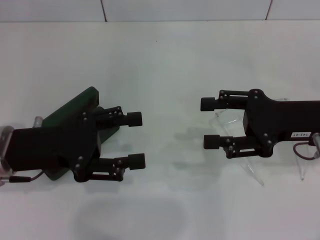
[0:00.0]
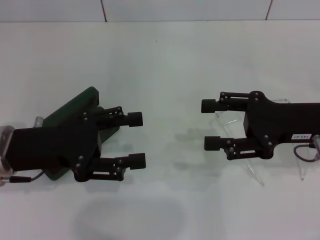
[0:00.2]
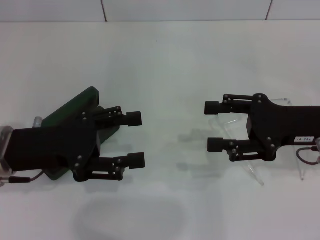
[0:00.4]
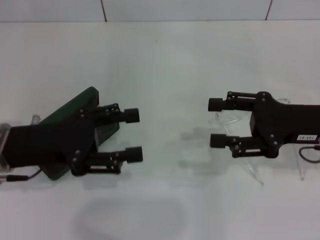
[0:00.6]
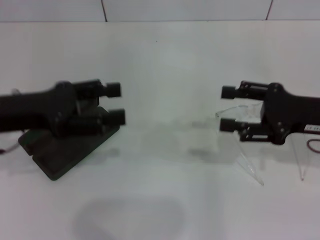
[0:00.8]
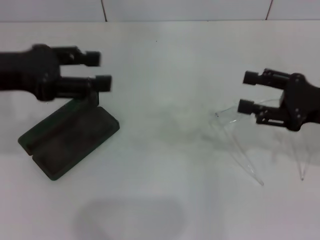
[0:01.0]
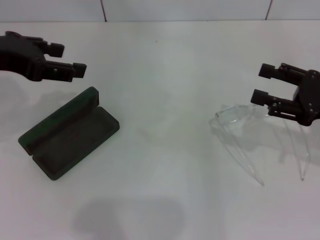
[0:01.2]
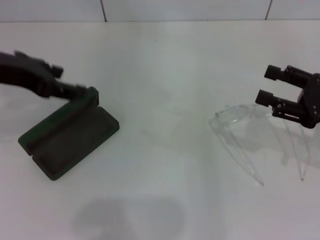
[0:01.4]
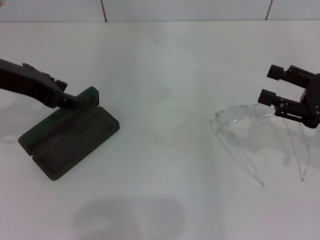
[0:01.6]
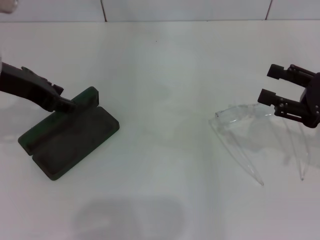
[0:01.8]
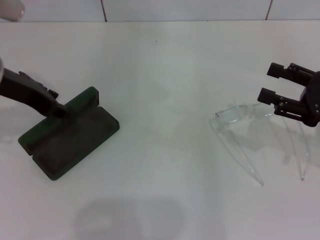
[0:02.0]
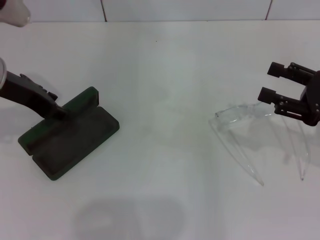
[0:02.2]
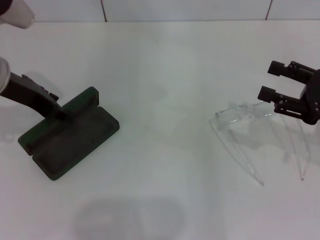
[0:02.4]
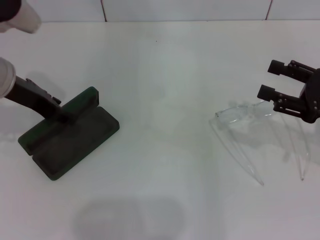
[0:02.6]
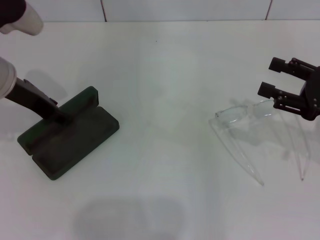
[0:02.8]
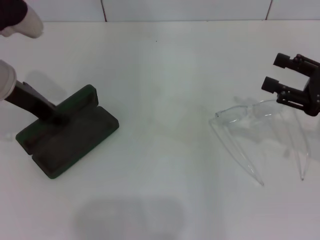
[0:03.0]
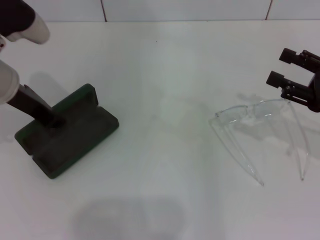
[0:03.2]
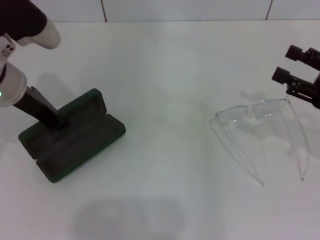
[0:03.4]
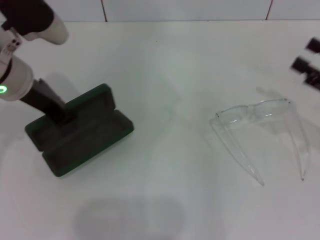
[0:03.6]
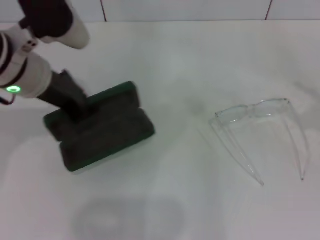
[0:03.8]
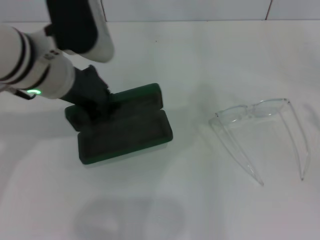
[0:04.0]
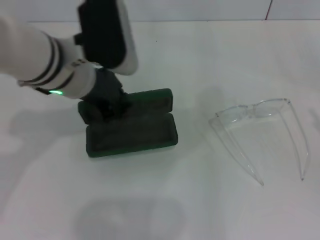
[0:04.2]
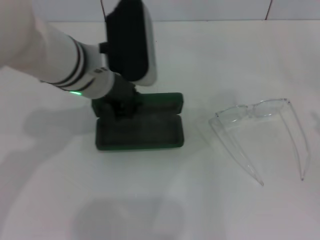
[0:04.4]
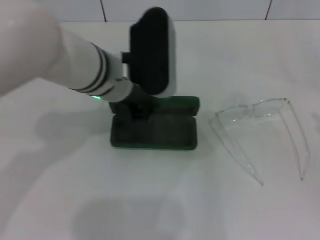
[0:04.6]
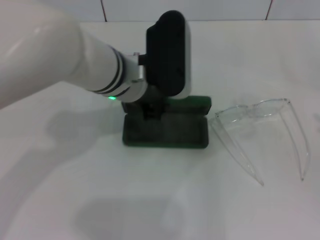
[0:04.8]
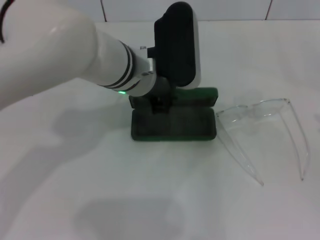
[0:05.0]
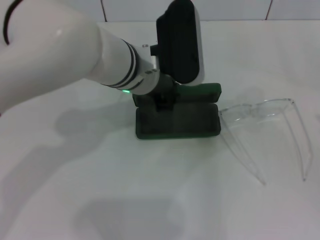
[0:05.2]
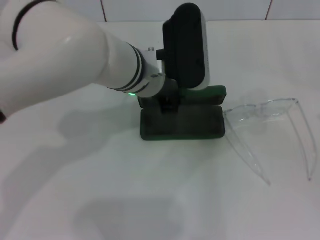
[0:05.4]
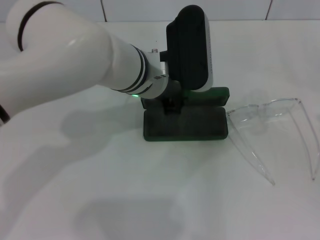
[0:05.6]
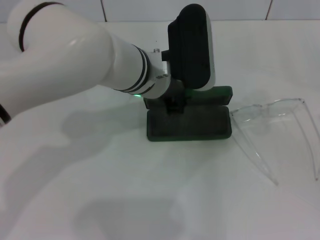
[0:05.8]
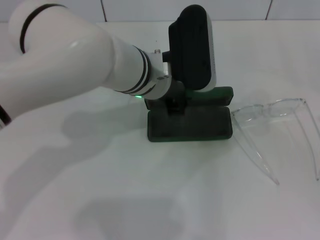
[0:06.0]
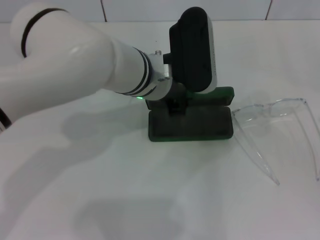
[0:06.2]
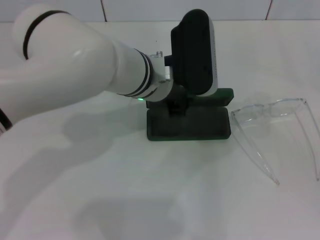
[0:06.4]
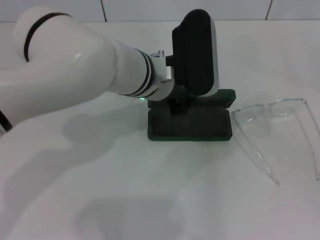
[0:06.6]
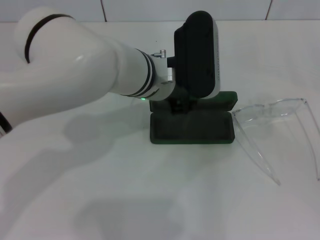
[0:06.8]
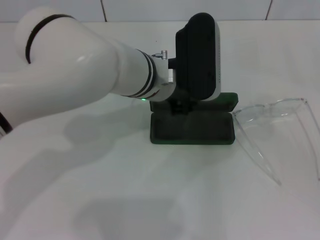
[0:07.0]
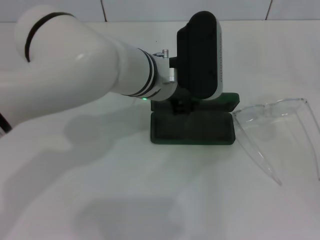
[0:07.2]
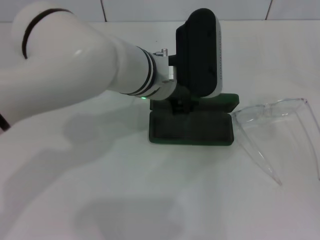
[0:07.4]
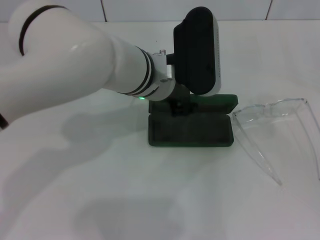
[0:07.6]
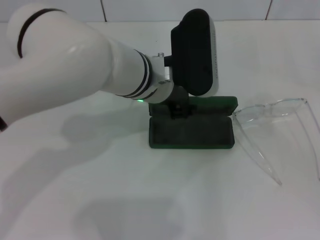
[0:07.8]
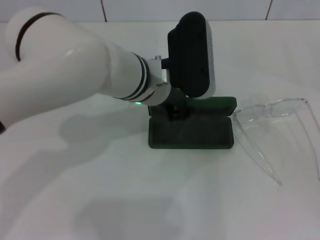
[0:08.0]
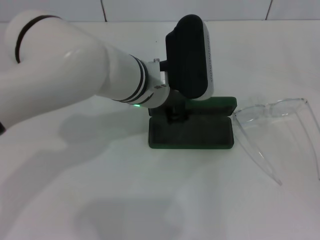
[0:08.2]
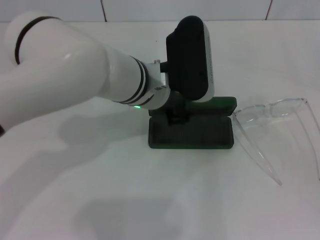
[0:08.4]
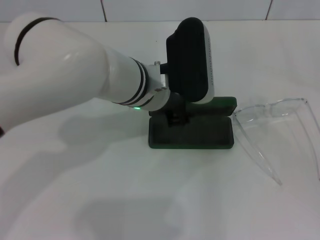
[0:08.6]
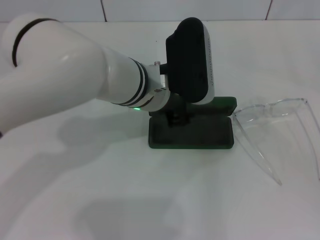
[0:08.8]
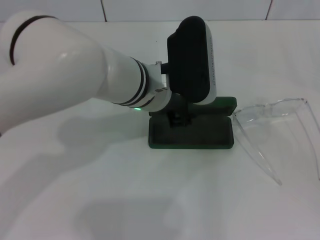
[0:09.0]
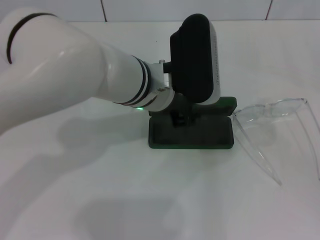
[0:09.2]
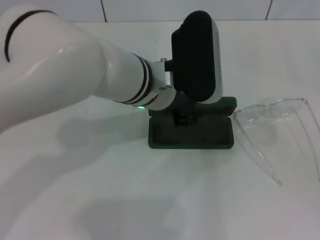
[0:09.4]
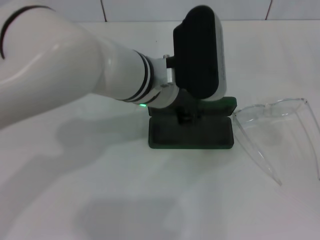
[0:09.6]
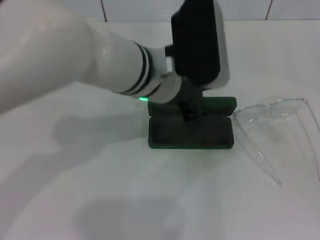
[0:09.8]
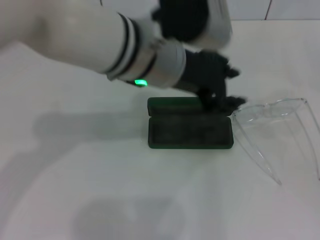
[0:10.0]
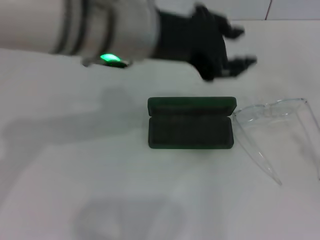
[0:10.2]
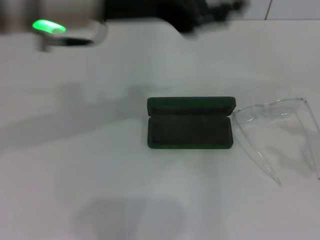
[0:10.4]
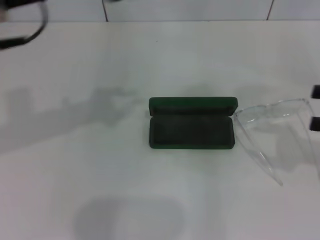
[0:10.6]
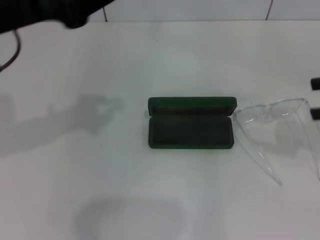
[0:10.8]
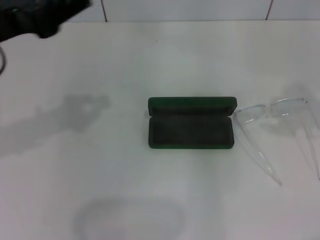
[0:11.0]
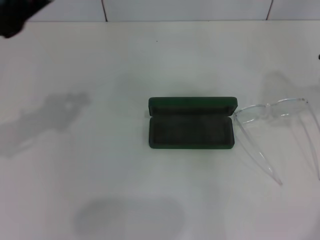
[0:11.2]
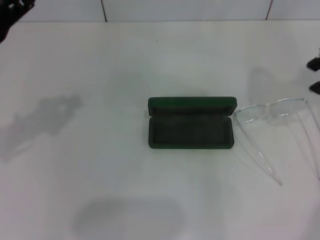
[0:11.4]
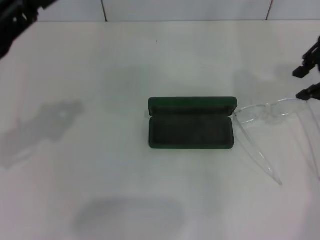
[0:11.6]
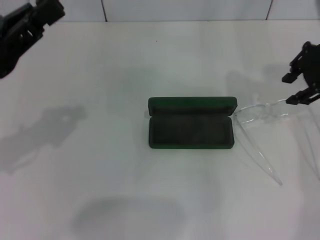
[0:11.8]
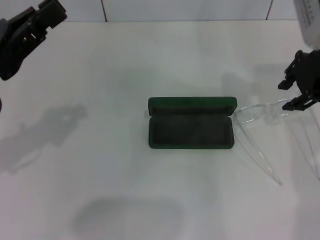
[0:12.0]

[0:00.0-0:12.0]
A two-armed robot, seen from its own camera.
Step, 0:00.0 to 0:02.8: Grab the glasses case with your left hand.
Step, 0:03.2 to 0:08.4: Place the glasses case in the center of the table with your left hand.
0:00.0 to 0:01.6: The right gripper travels to the right by about 5 cm; the left gripper is displaced upward and forward by some 10 cm.
0:01.6 to 0:03.0: The grippers move only a little.
0:03.0 to 0:04.4: The left gripper travels to the right by roughly 10 cm, and closes its fingers; the right gripper goes roughly 15 cm backward and to the right.
0:04.4 to 0:06.0: The left gripper travels to the right by roughly 5 cm.
0:06.0 to 0:07.6: The left gripper opens its fingers.
0:07.6 to 0:09.0: The grippers move only a little.
0:09.0 to 0:10.4: The left gripper heads upward and to the left, covering about 20 cm. The right gripper moves about 5 cm.
0:10.4 to 0:12.0: The left gripper goes approximately 20 cm to the left and downward, and closes up. Meanwhile the right gripper heads forward, to the left and upward, covering approximately 25 cm.

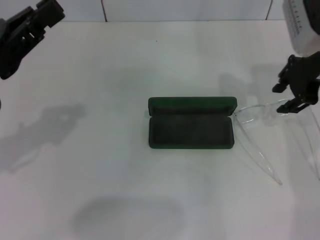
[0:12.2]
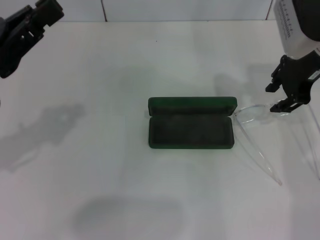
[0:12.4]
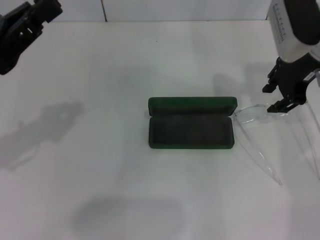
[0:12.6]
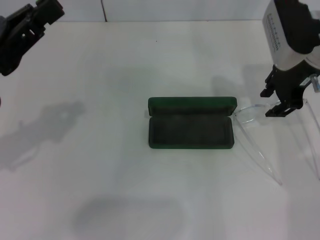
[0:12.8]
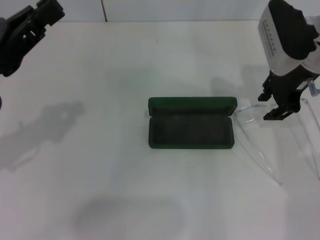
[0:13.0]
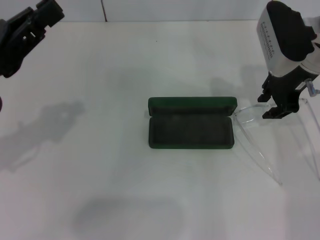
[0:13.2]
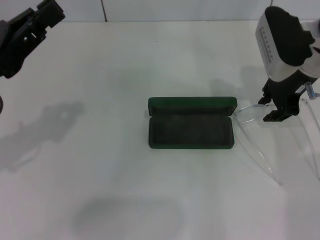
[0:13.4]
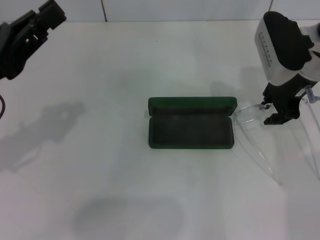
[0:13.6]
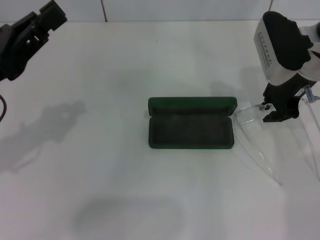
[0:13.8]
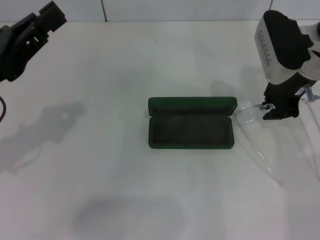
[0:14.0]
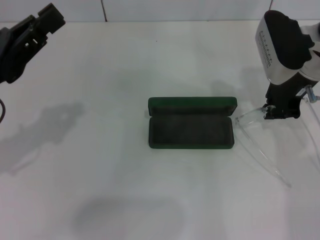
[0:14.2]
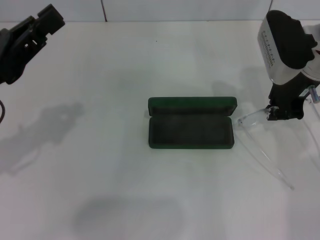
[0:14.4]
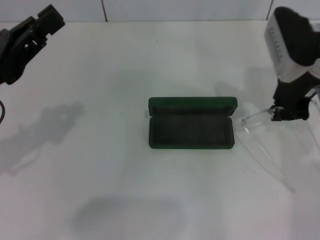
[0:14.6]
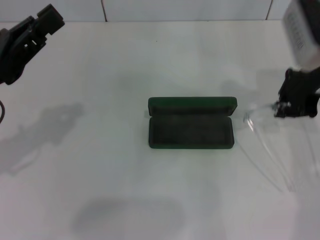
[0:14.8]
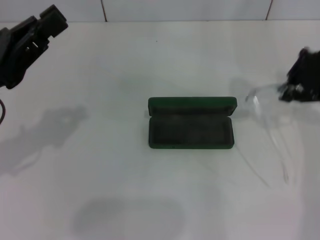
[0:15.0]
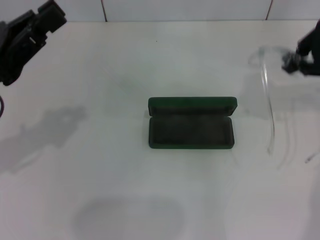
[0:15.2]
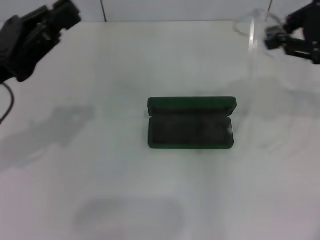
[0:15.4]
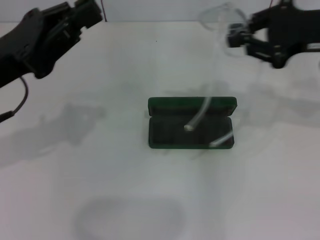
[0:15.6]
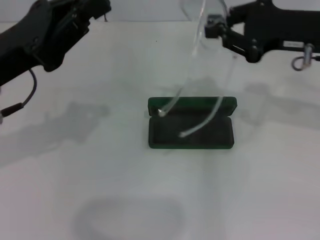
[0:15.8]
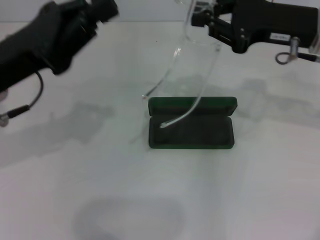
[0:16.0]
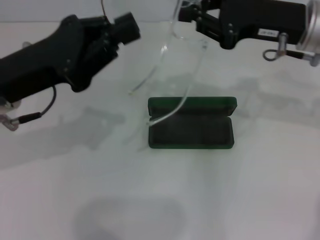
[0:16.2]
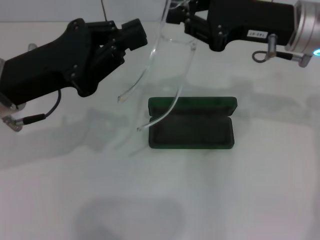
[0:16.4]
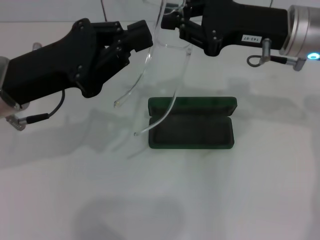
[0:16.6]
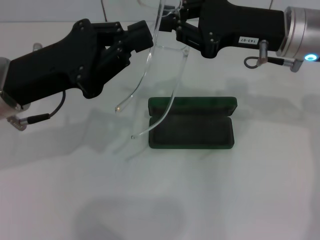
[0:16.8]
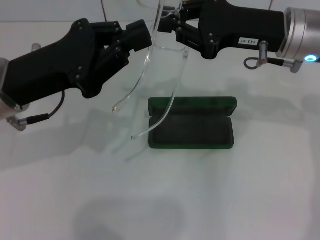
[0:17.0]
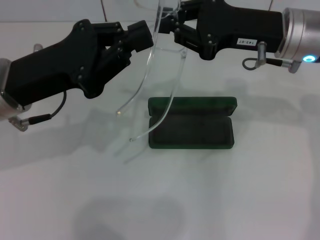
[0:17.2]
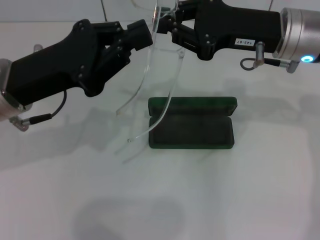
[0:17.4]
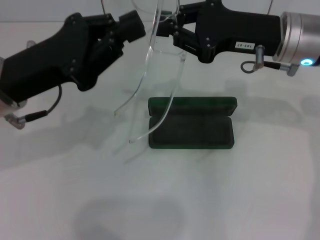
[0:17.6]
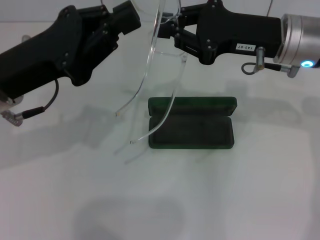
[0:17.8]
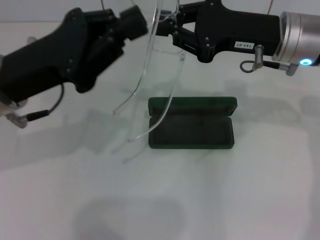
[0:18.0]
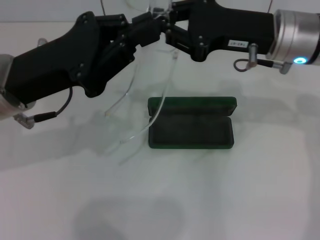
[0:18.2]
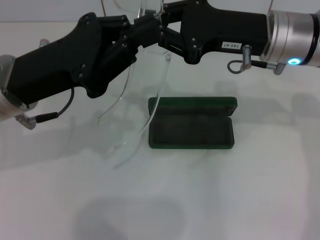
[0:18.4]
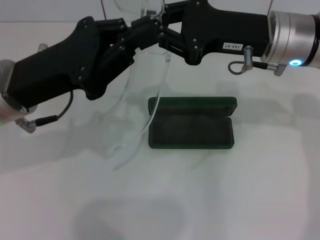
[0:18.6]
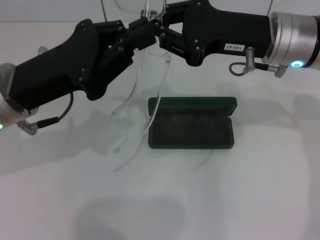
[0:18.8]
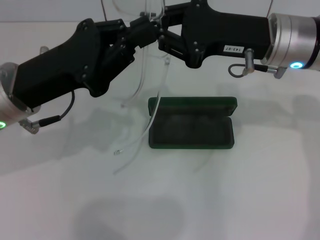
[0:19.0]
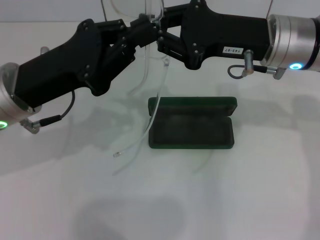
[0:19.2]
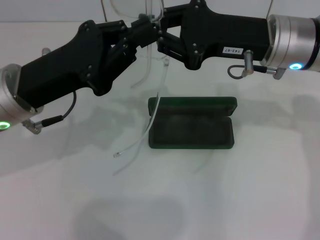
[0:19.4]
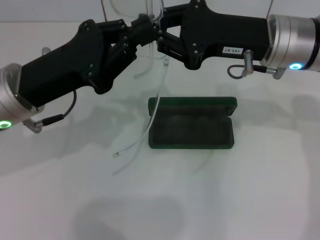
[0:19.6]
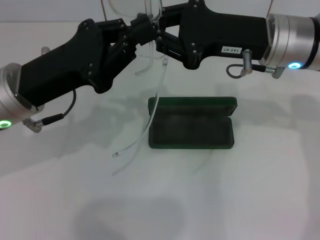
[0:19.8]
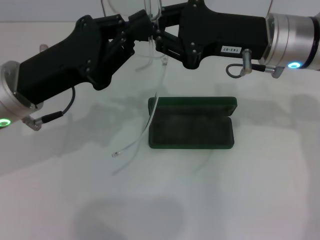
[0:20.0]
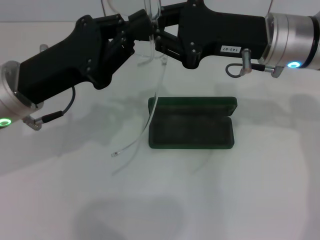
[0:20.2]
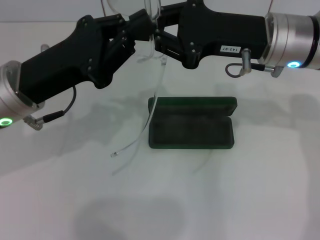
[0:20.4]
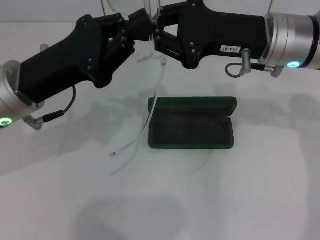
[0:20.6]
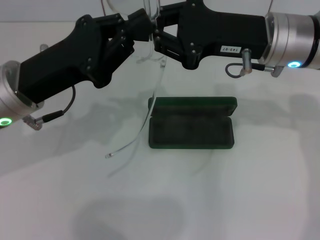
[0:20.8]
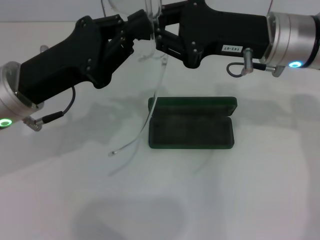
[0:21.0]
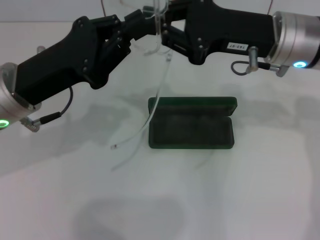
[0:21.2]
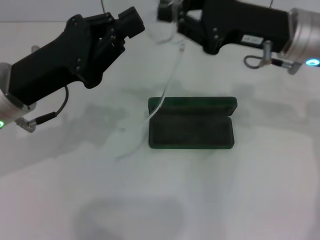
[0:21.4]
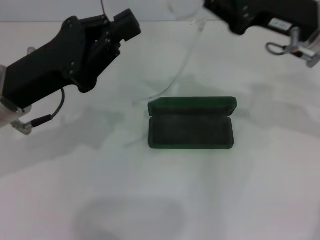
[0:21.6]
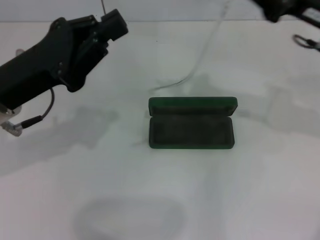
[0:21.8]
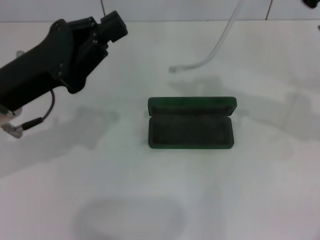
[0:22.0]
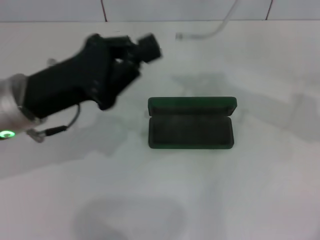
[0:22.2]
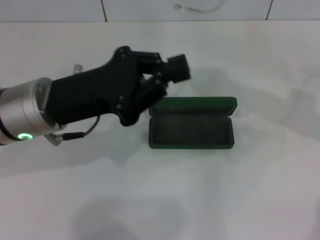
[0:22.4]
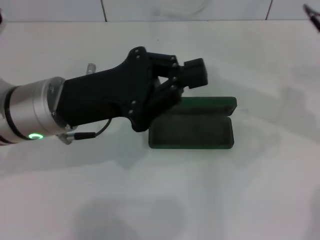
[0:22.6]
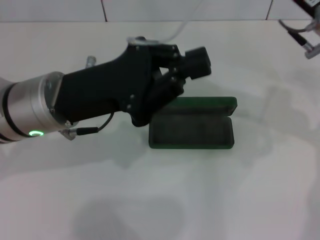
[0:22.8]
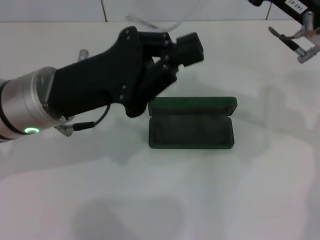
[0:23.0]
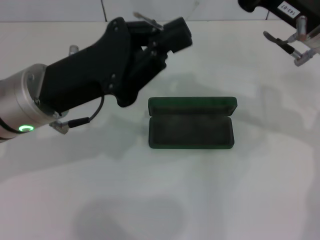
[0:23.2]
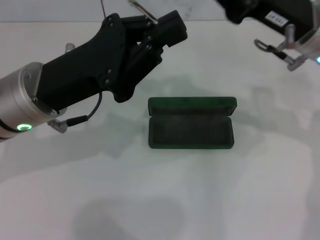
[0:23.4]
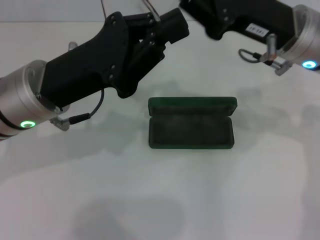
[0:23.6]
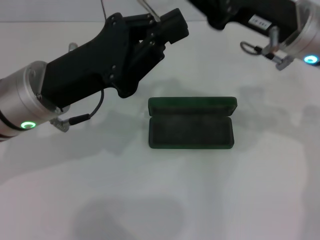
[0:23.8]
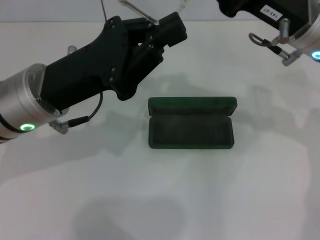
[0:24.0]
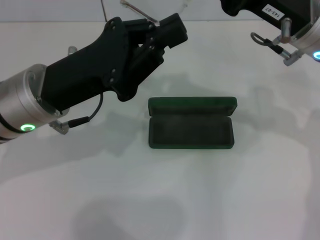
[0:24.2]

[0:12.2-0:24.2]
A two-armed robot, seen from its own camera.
0:12.2 to 0:13.8: The right gripper changes place by approximately 5 cm.
0:13.8 to 0:15.2: The right gripper goes about 15 cm upward, to the right and backward, and closes its fingers.
0:15.2 to 0:16.6: The right gripper goes roughly 10 cm to the left and downward. Meanwhile the left gripper shifts approximately 5 cm to the right.
0:16.6 to 0:19.8: The grippers move only a little.
0:19.8 to 0:21.2: Both grippers stay about where they are.
0:21.2 to 0:22.6: The right gripper goes about 5 cm to the right.
